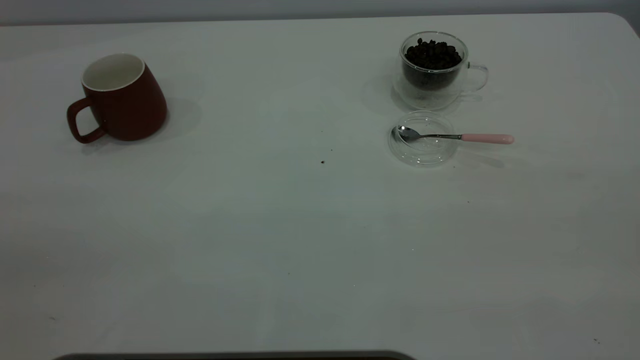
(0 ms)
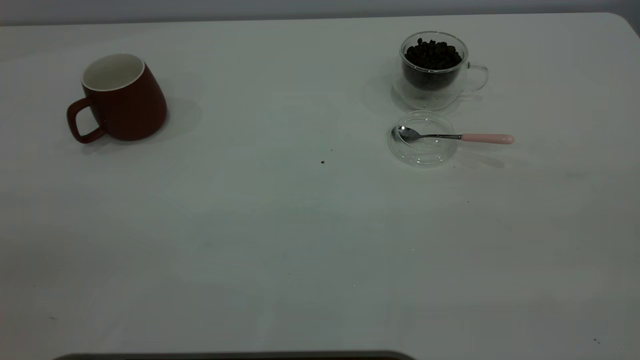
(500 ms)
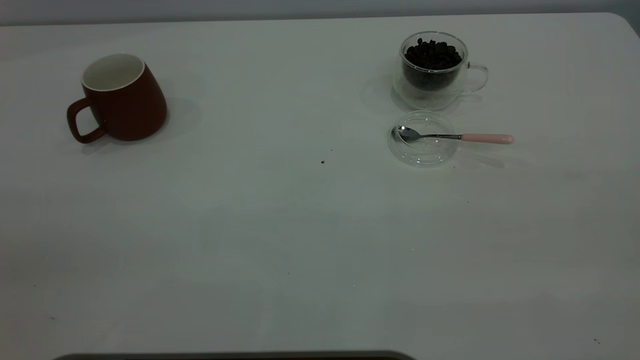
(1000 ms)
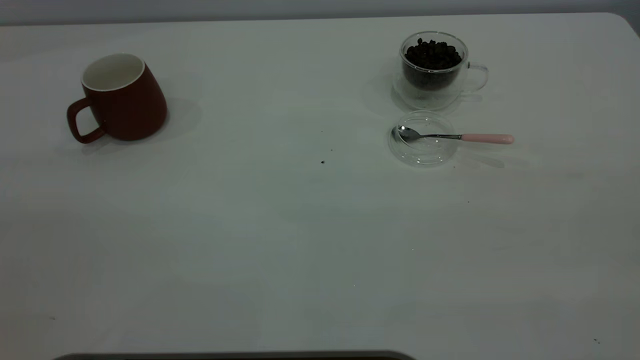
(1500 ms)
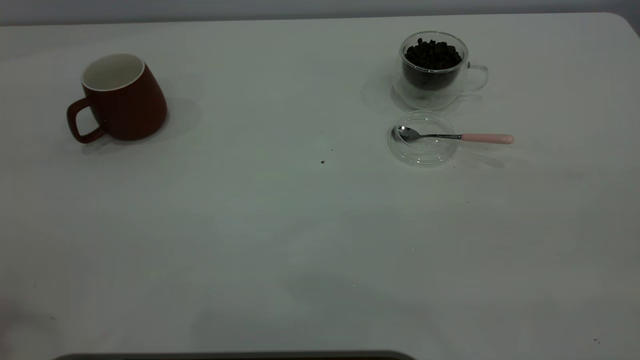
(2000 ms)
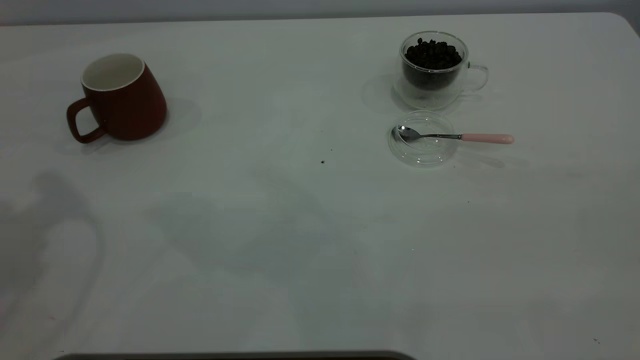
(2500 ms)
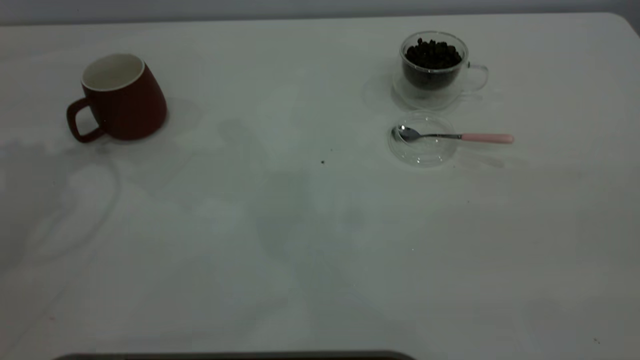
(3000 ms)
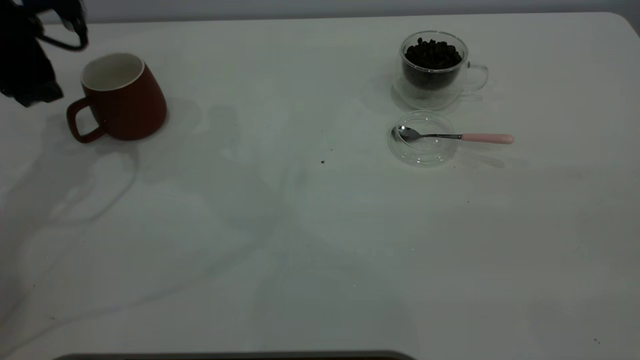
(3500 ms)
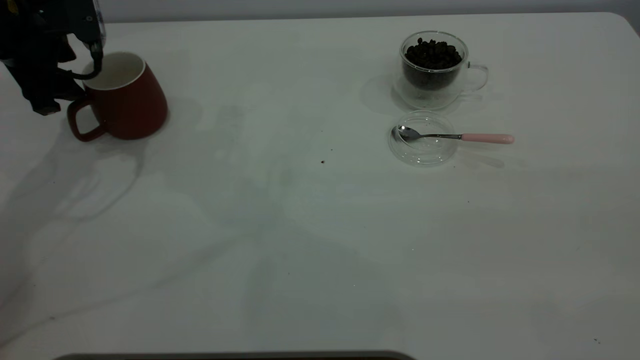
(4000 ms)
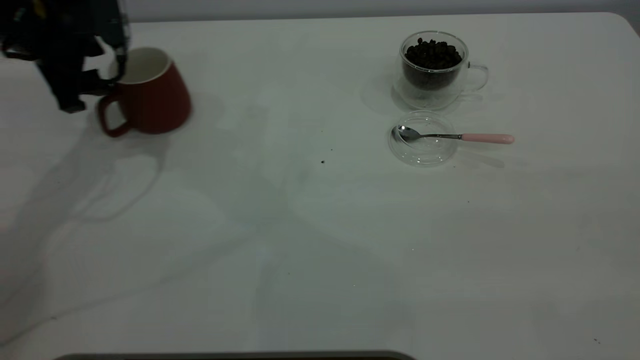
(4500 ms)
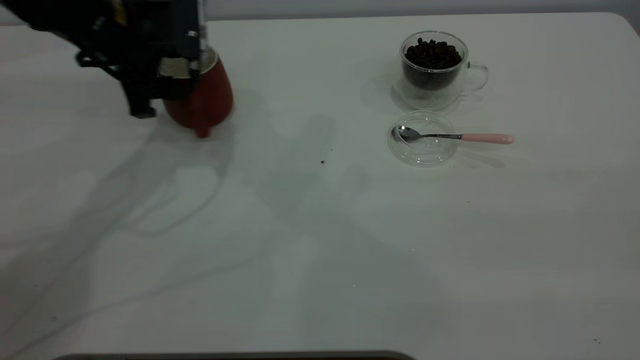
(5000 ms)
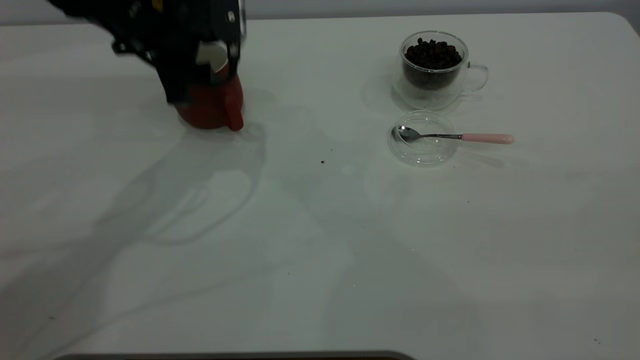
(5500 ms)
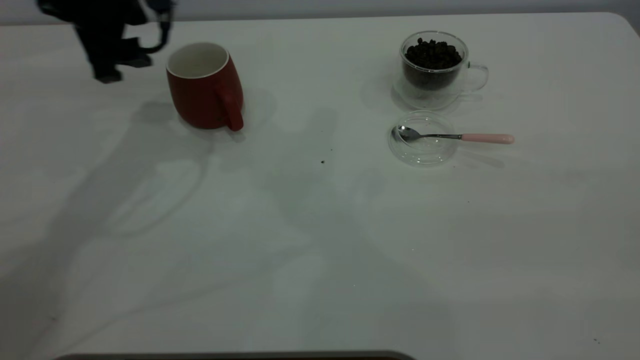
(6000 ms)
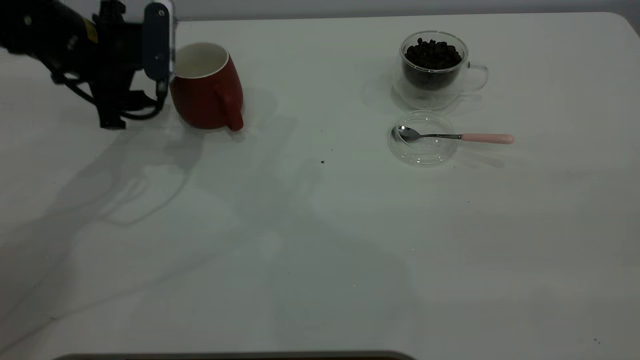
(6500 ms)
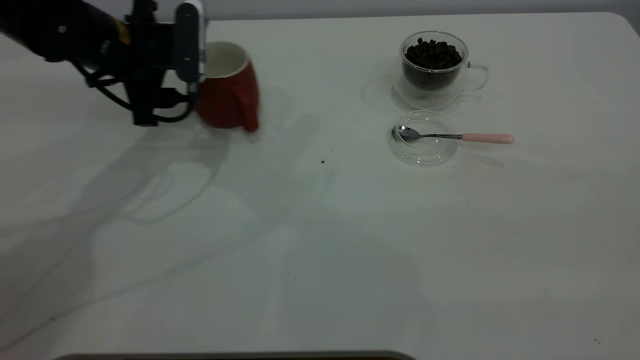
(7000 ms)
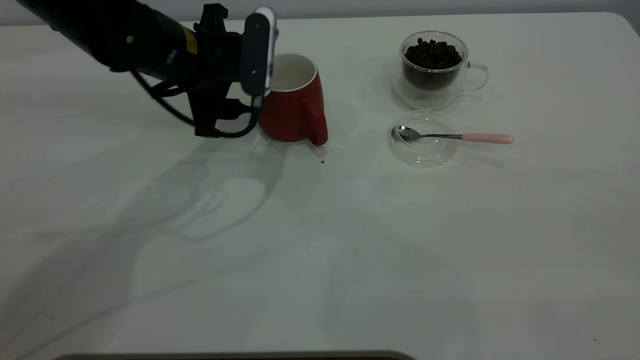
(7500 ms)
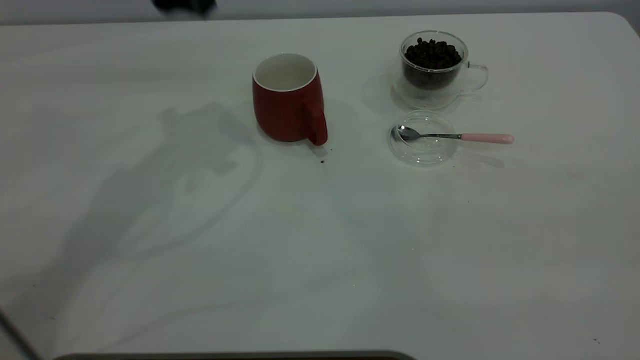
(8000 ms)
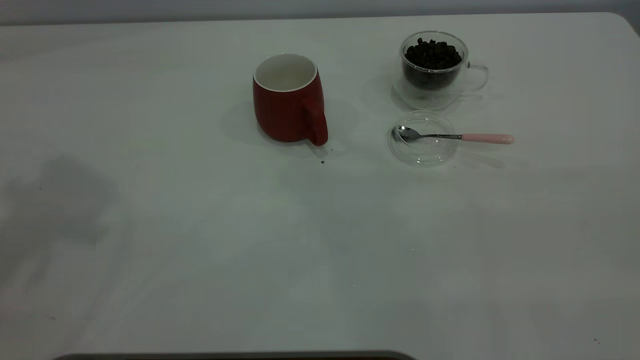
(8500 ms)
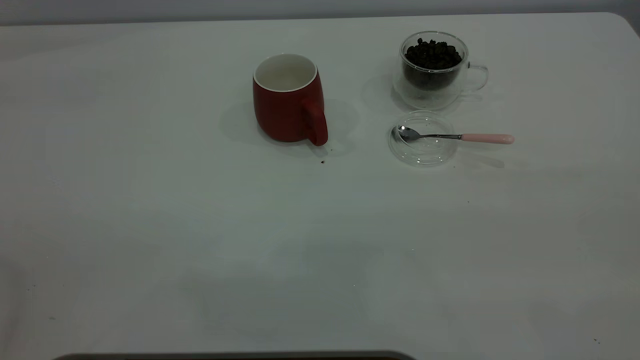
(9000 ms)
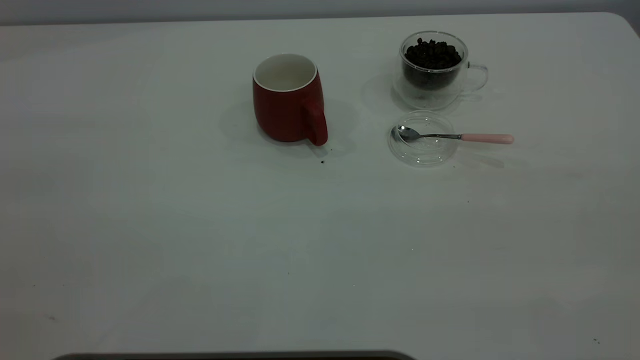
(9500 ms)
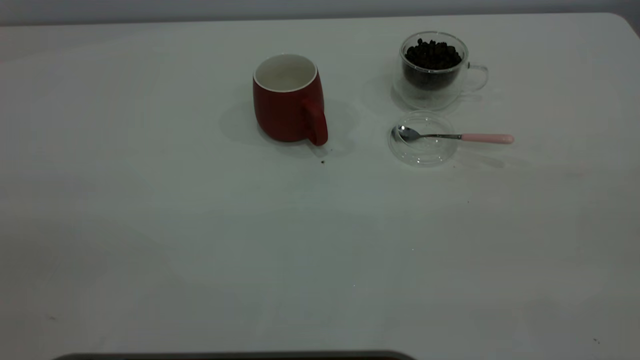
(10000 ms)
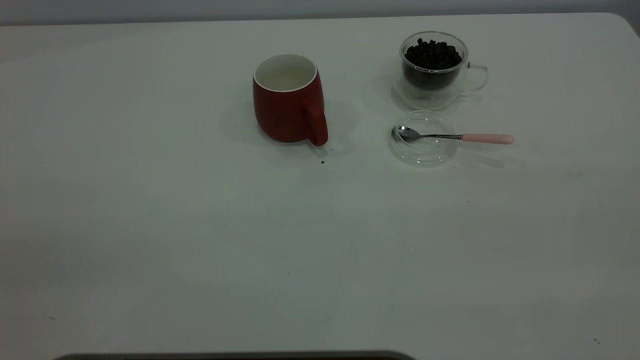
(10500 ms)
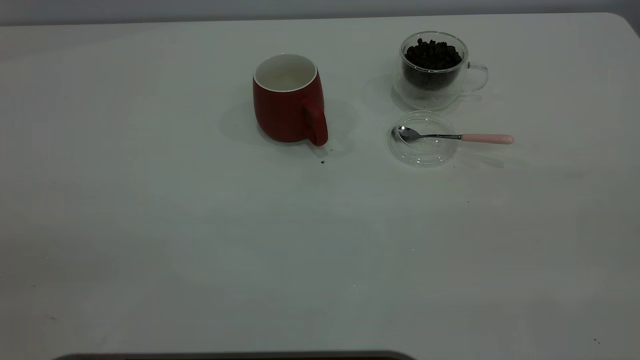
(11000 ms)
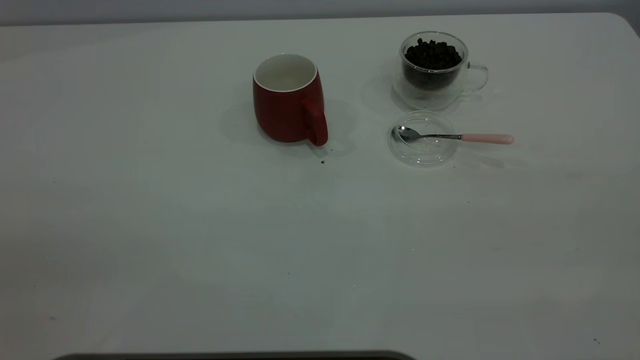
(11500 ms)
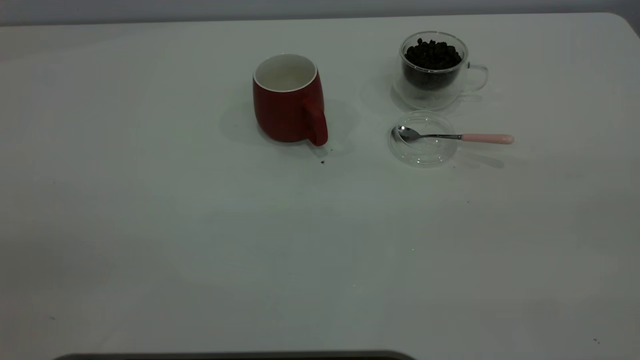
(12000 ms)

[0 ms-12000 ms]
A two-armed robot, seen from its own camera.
Task of the whole recording: the left gripper place the red cup in the center of the table, the right gripper take the pink spoon from the cup lid and scoop out the coffee beans from the coffee cup and put them into the red cup, the right gripper put the spoon back into the cup lid.
Step, 0 ms to 7500 ms: Move the cup to the center of view.
2000 ms to 4000 ms: The left gripper travels forward and downward by roughly 35 cm.
4000 ms to 6000 ms: The left gripper moves to the right, some 10 cm.
6000 ms to 8000 ms: The left gripper goes about 10 cm upward.
8000 ms to 10000 ms: The left gripper shifts about 40 cm backward.

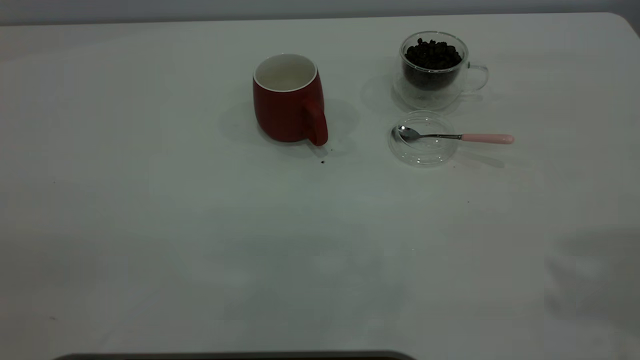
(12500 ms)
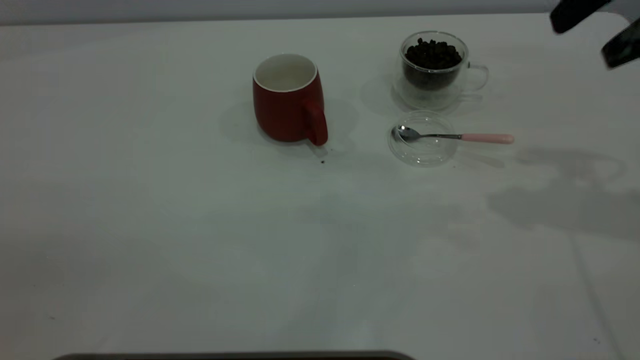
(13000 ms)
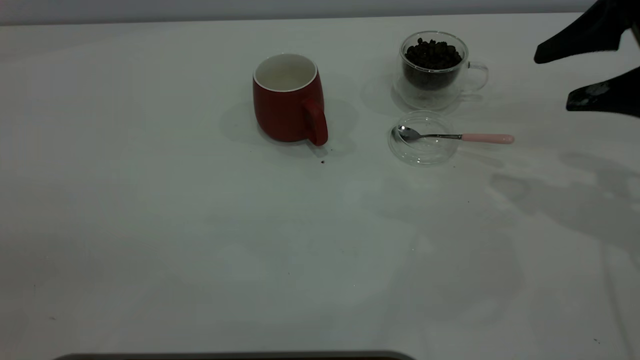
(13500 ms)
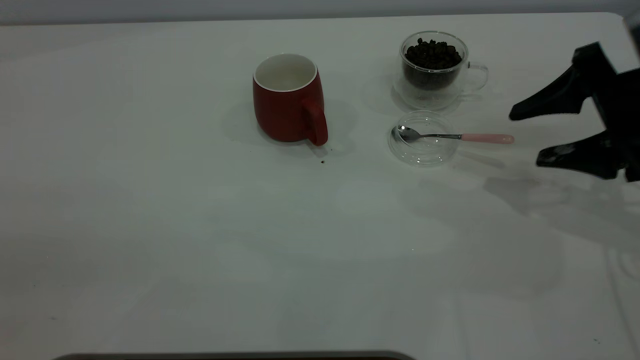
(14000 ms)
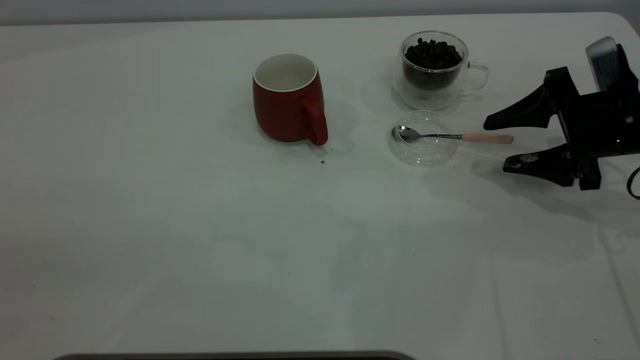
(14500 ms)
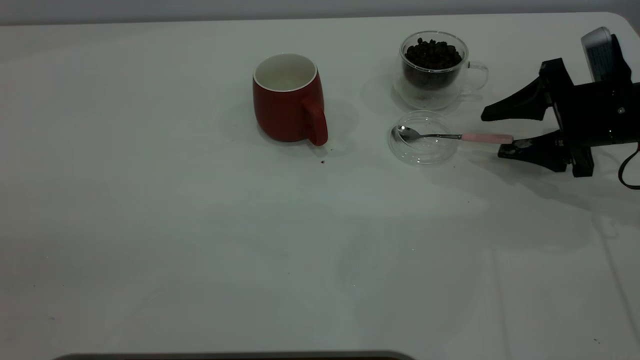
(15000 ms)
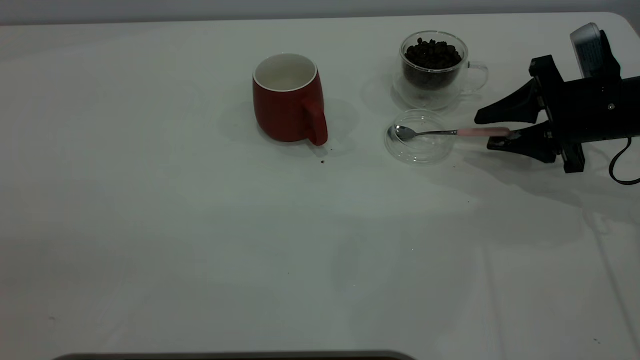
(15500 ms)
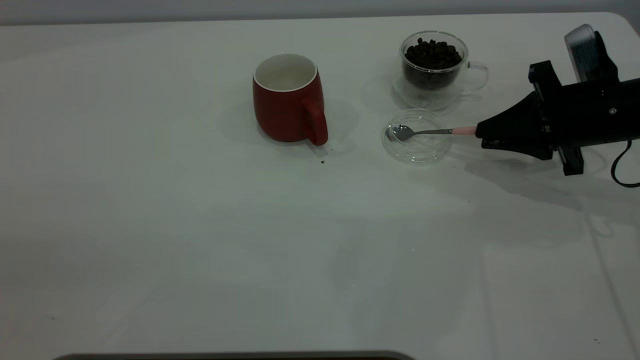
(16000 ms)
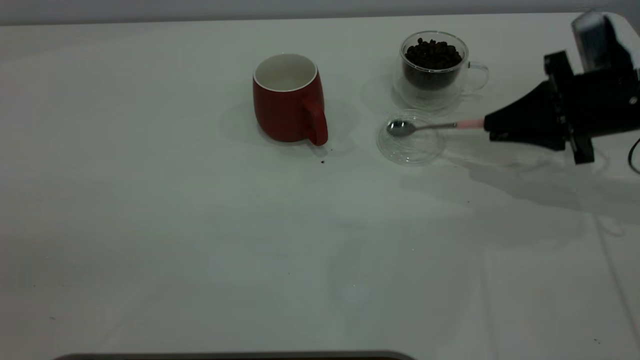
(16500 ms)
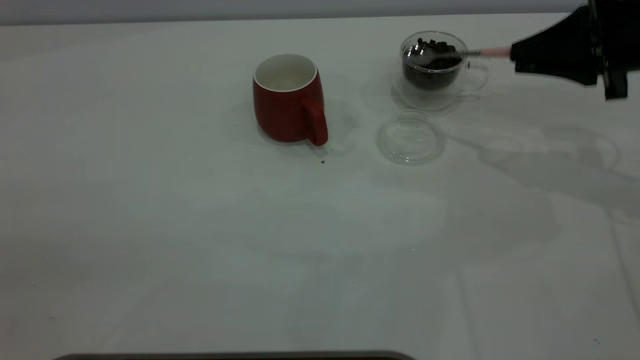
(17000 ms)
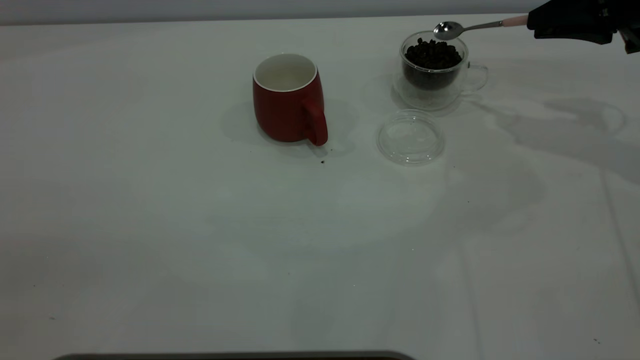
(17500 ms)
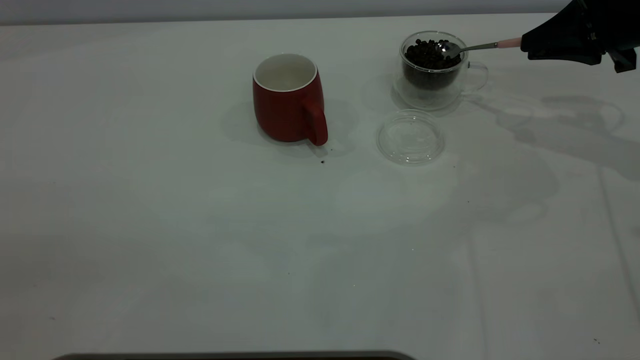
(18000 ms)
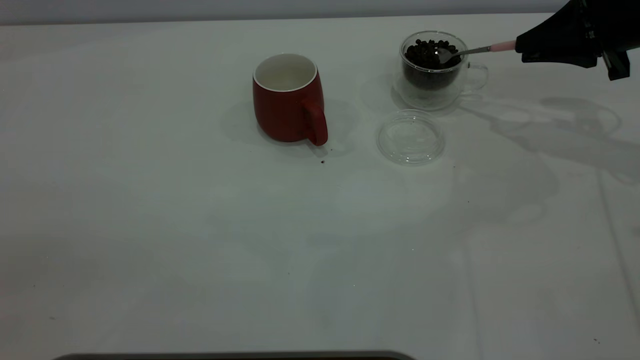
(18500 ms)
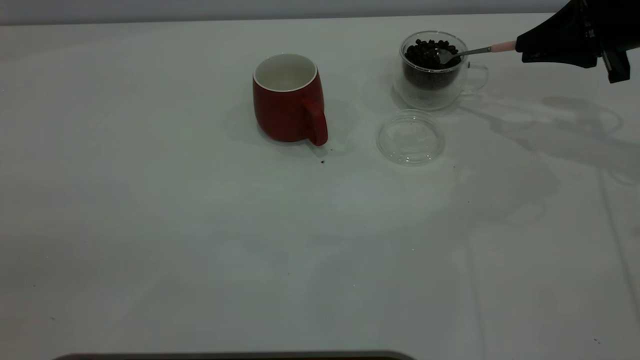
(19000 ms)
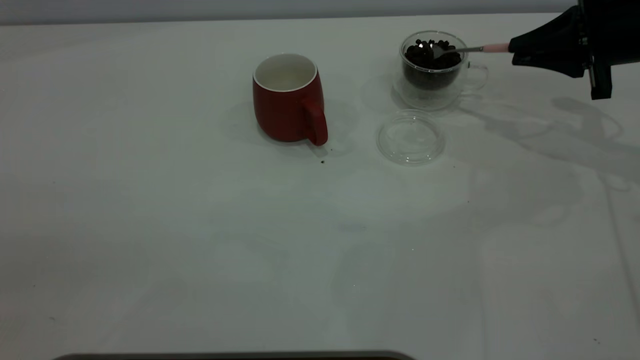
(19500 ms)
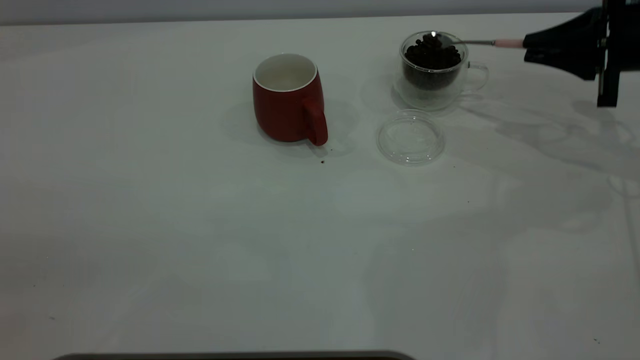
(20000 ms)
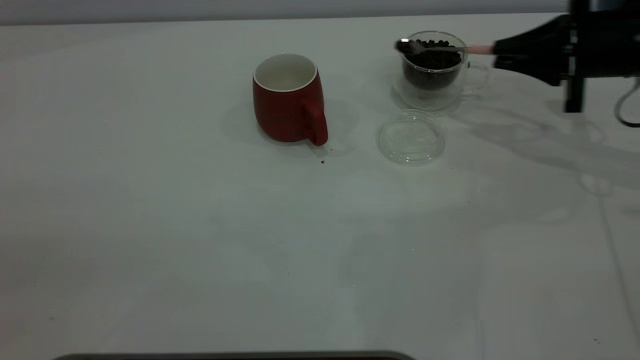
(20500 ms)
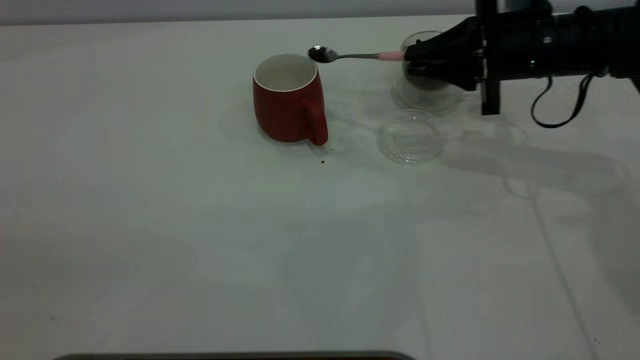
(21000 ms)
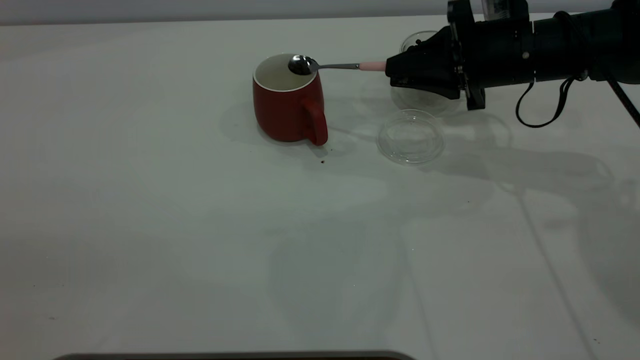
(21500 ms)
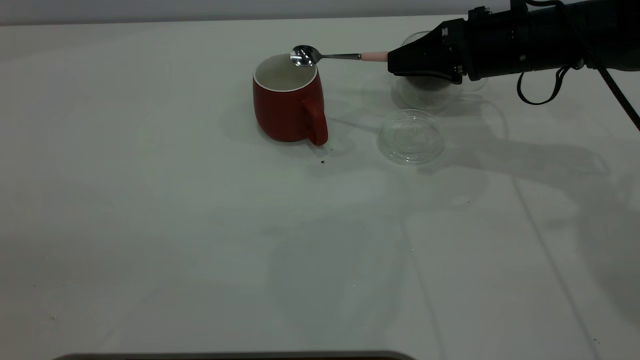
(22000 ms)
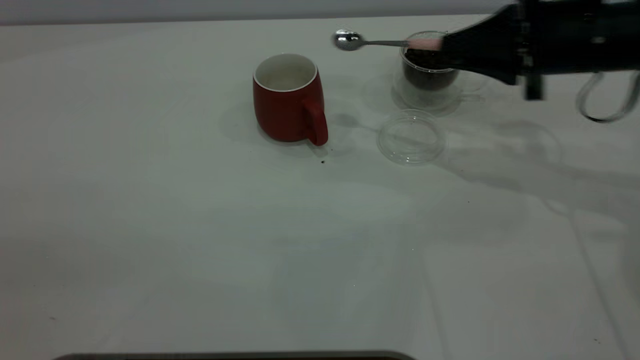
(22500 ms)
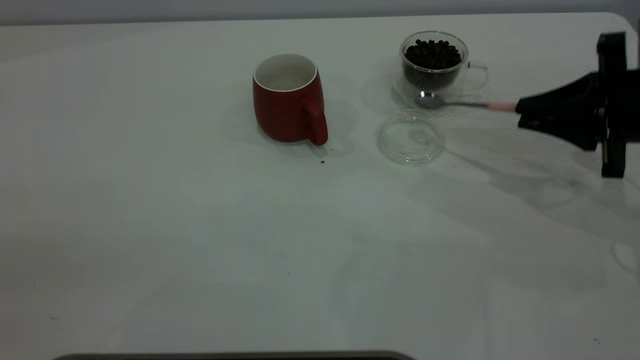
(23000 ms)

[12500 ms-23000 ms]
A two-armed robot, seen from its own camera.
Task of the whole recording: the left gripper place the red cup in the center of the table, the right gripper take the pink spoon from the cup lid and scoop out the coffee beans from the coffee cup and put them into the red cup, the right gripper put the spoon back into the cup lid.
Step, 12500 ms to 16500 ms: Pick up the spoon.
Step, 17000 ms to 22000 ms: Scoop a spoonful of beans into the cup.
12500 ms to 14500 ms: The right gripper shifts some 35 cm downward.
14500 ms to 16500 ms: The right gripper closes.
16500 ms to 19000 ms: The right gripper goes approximately 10 cm forward and upward.
19000 ms to 21000 ms: The right gripper goes about 10 cm to the left.
21000 ms to 23000 ms: The right gripper moves to the right and backward, approximately 15 cm.
